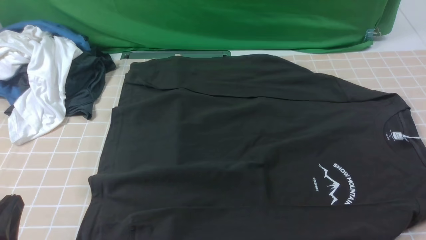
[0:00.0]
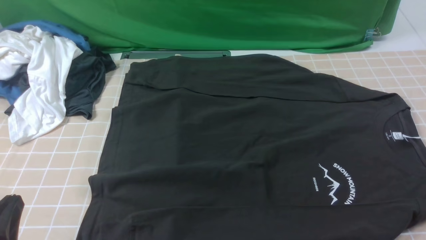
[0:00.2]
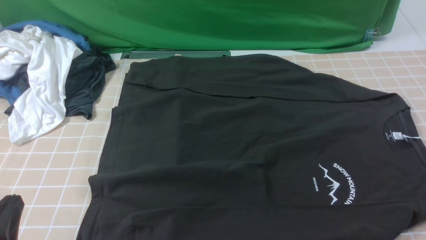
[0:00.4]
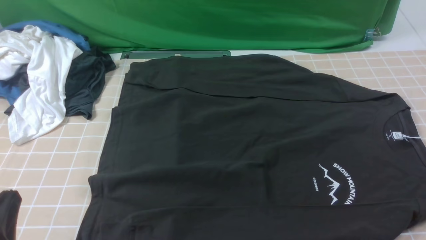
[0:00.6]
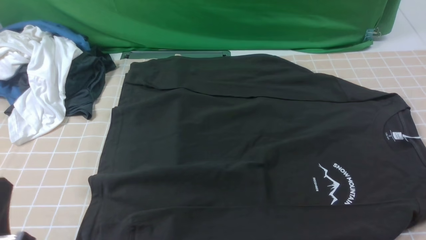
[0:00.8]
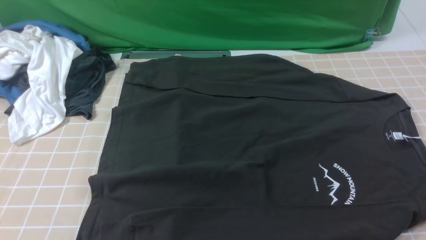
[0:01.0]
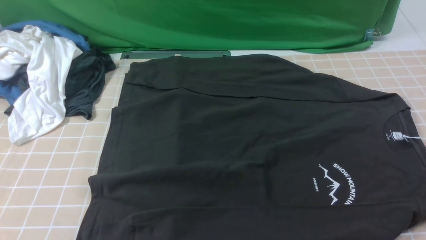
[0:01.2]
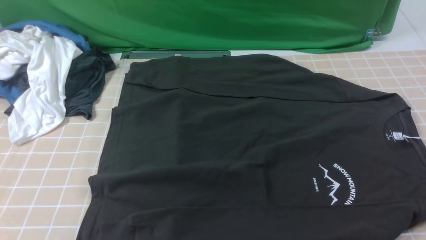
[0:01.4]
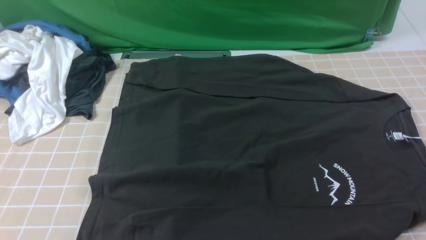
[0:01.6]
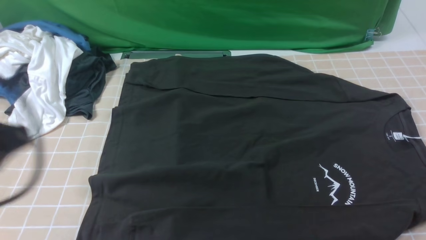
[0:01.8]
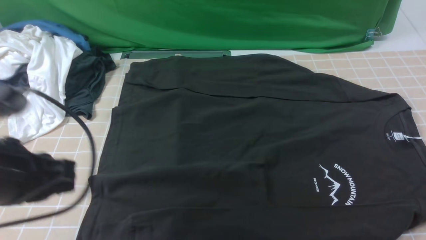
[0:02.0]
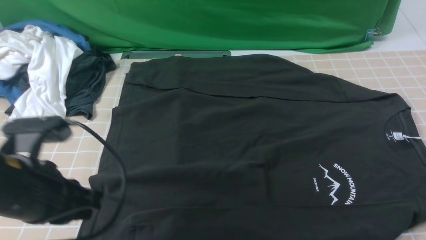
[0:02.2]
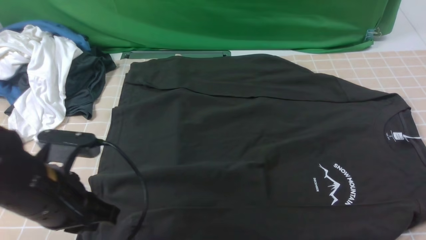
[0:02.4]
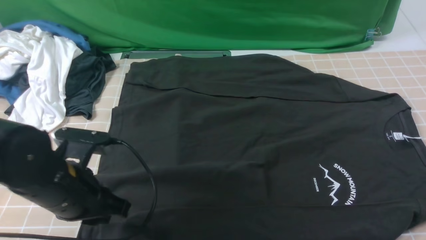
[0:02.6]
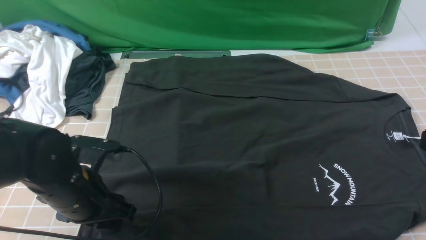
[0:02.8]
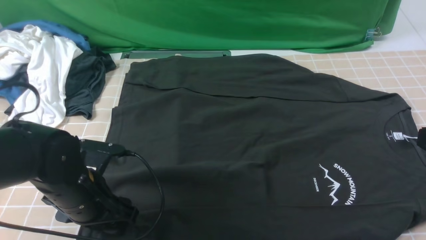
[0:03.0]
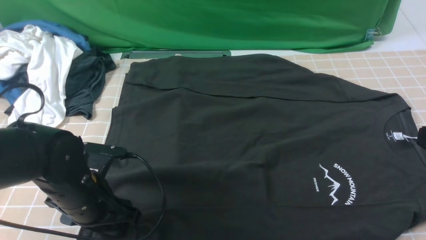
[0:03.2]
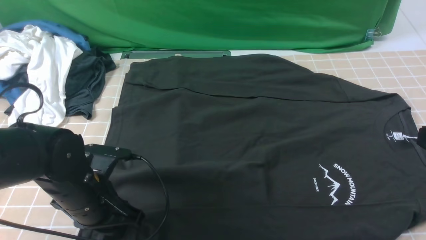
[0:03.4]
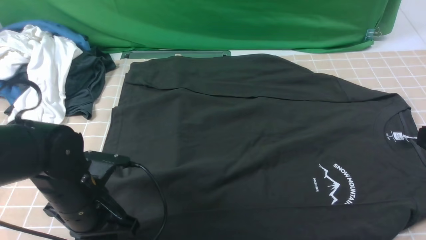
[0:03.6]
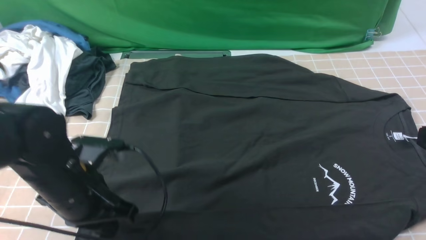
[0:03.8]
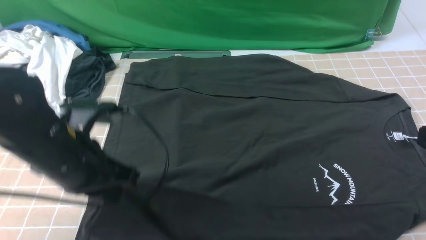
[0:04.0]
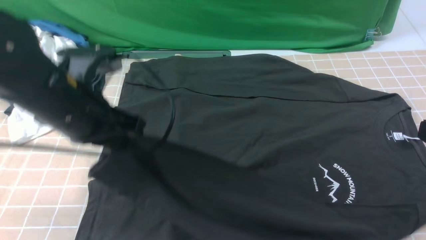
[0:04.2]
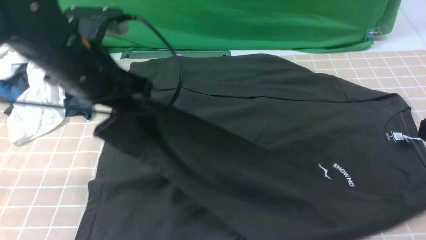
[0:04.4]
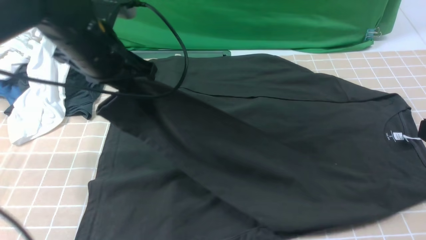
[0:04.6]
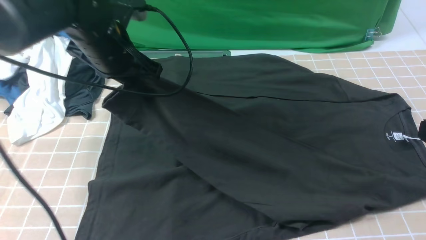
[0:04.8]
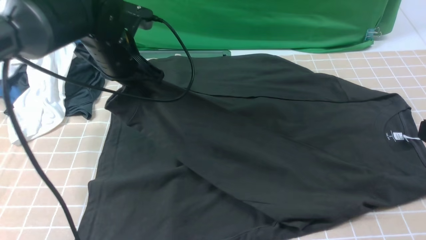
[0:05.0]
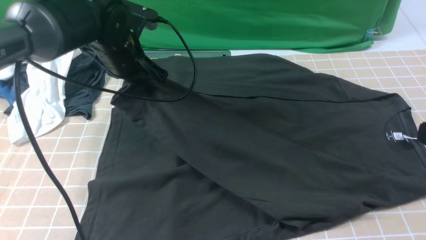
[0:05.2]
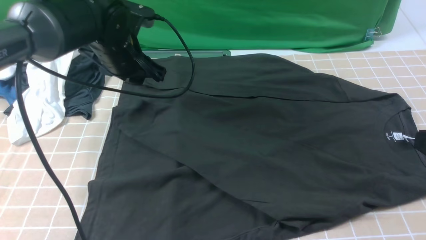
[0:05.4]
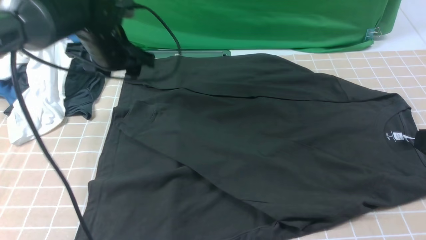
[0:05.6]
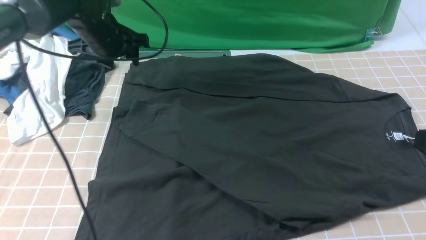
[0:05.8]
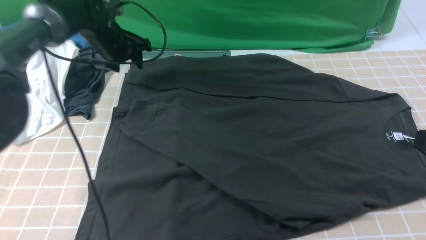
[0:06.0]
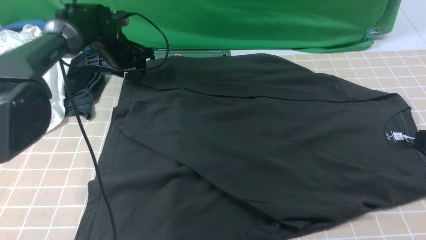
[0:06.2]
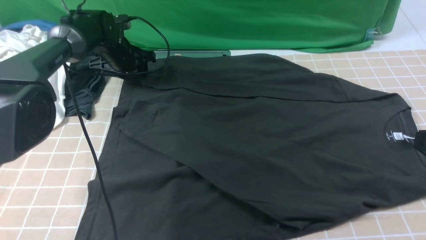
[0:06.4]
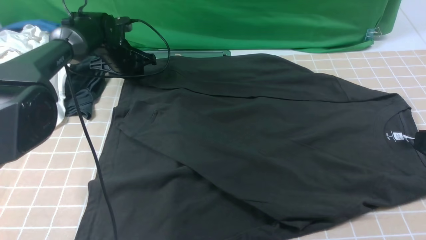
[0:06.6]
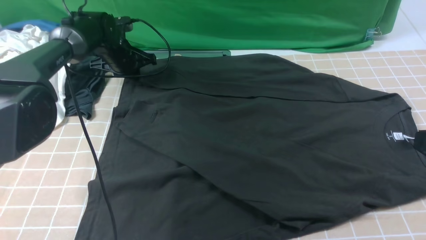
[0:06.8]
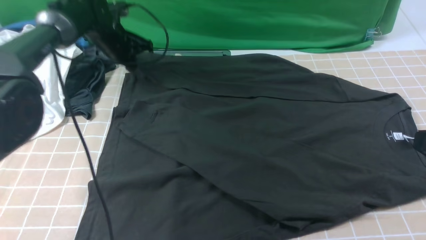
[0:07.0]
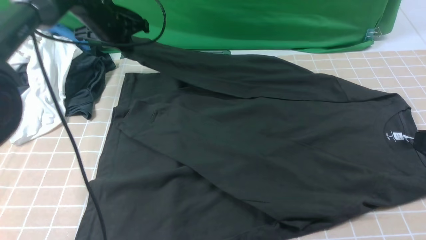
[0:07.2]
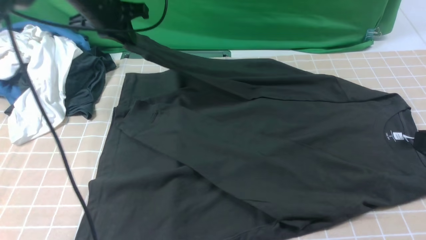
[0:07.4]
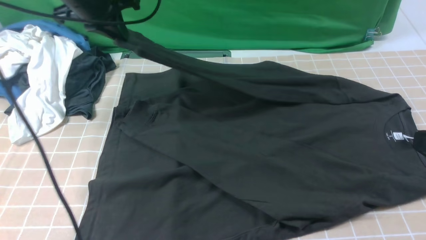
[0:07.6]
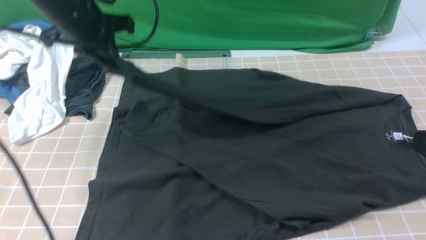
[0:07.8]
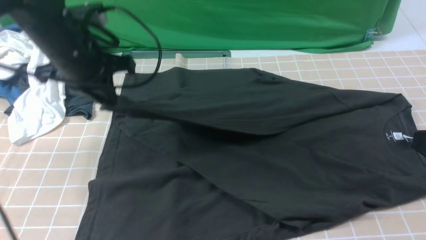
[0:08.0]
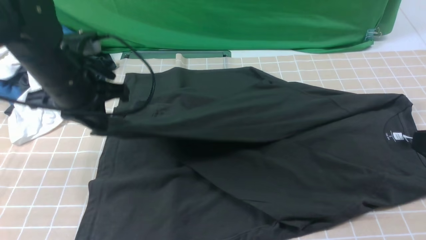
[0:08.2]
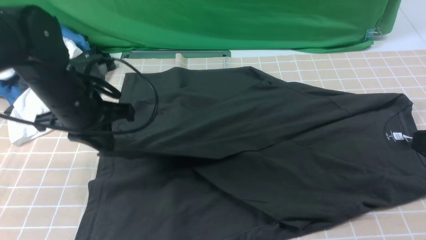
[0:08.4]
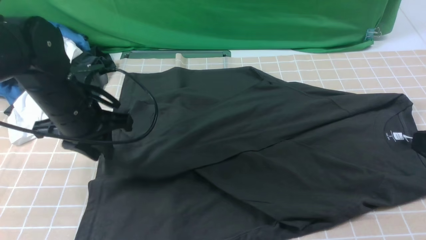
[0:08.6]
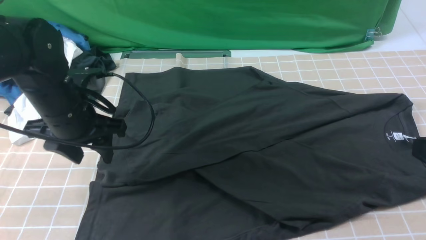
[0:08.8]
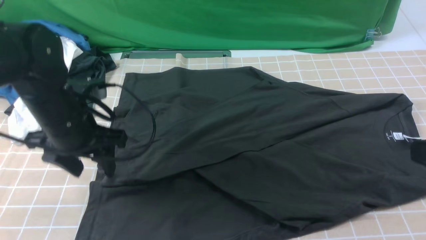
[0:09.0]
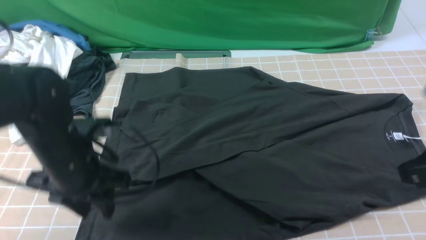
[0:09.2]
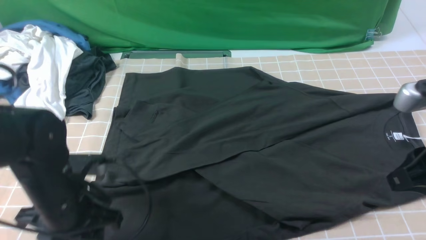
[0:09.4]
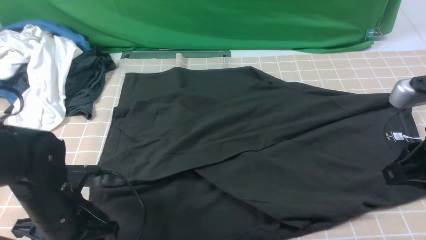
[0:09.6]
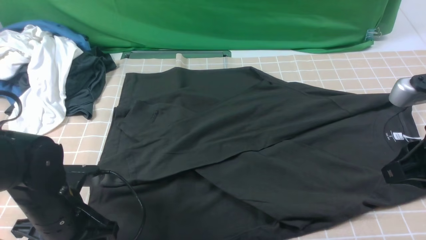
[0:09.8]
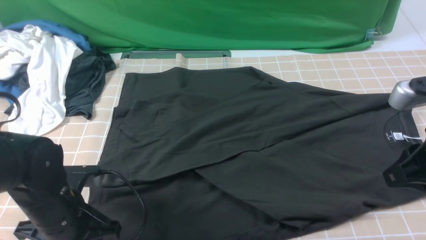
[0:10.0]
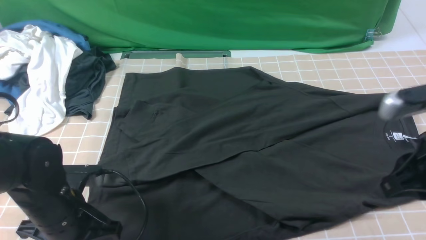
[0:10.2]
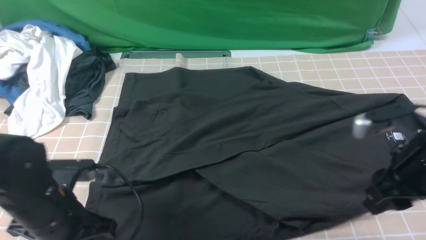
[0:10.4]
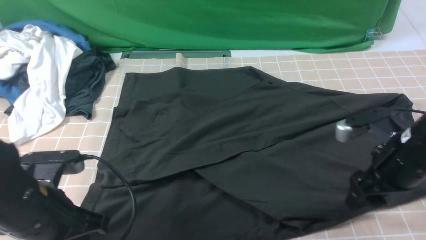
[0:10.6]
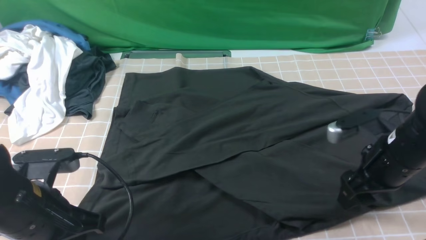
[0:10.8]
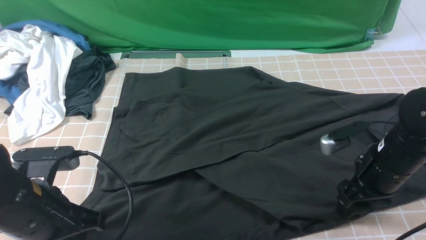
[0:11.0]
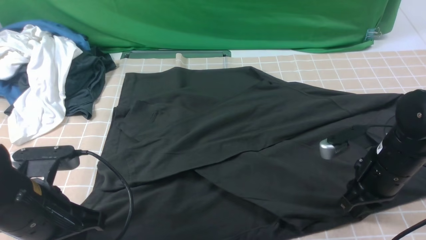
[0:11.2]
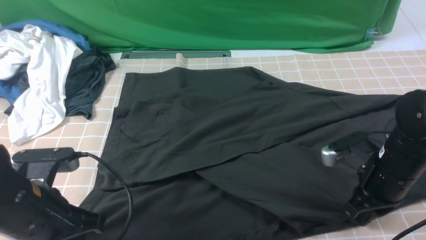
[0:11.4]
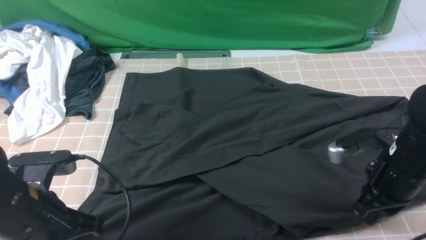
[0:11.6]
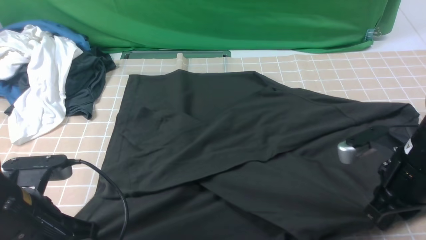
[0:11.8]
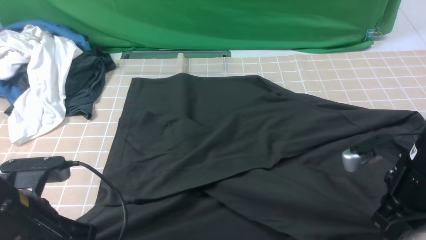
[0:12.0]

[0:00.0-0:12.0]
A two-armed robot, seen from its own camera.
Step, 0:00.0 to 0:03.4: use the left arm to clamp the cuff closest to it.
Step, 0:03.6 to 0:05.4: use the left arm to drag and place the cuff at the centered position on the left edge of the fabric.
Step, 0:05.6 to 0:06.8: use the left arm to clamp the cuff farthest from it.
Step, 0:07.0 to 0:08.6: use the left arm to drag and drop the cuff onto the cuff closest to the left arm.
Step, 0:08.8 to 0:11.2: use both arms simultaneously to clamp the lower edge of the clothing fabric.
0:00.0 to 0:01.6: The left gripper shifts about 15 cm upward.
0:01.6 to 0:03.0: The left gripper is displaced downward and forward by approximately 25 cm, and opens.
0:03.0 to 0:04.4: The left gripper shifts about 15 cm upward and forward, and closes its fingers.
0:04.4 to 0:06.0: The left gripper heads forward and downward, covering some 25 cm, and opens up.
0:06.0 to 0:07.6: The left gripper travels upward and backward by some 15 cm, and closes up.
0:07.6 to 0:09.0: The left gripper moves backward and downward, roughly 20 cm, and opens its fingers.
0:09.0 to 0:10.4: The right gripper is displaced forward and downward by roughly 10 cm, and opens its fingers, while the left gripper goes approximately 10 cm backward, and closes its fingers.
0:10.4 to 0:12.0: The right gripper closes; the left gripper moves about 5 cm.

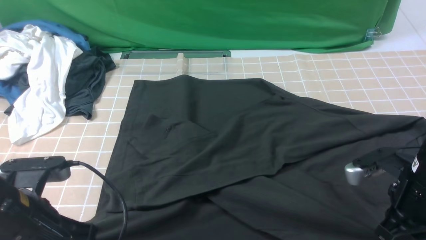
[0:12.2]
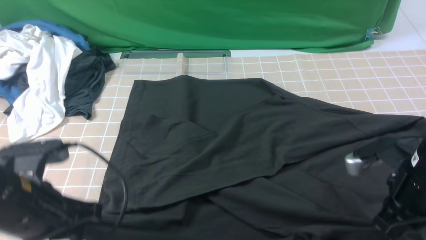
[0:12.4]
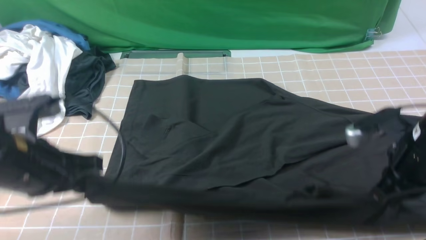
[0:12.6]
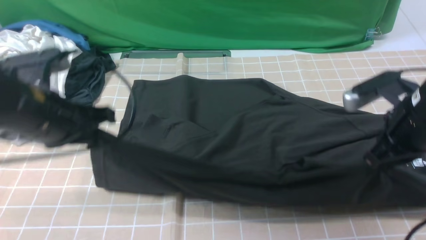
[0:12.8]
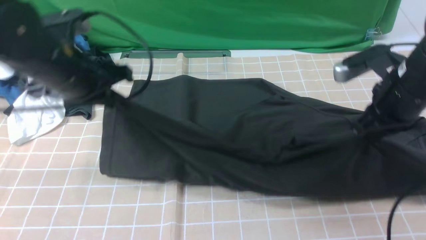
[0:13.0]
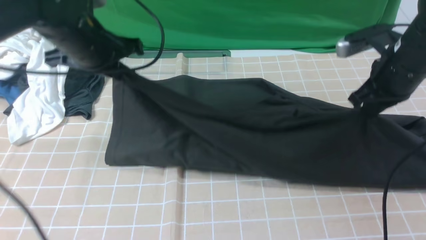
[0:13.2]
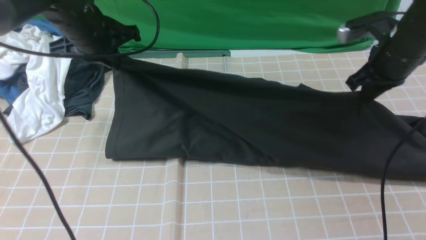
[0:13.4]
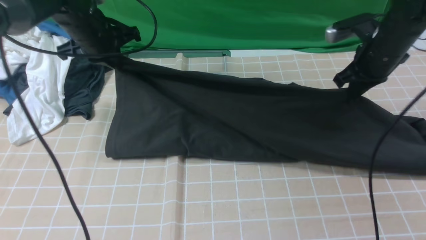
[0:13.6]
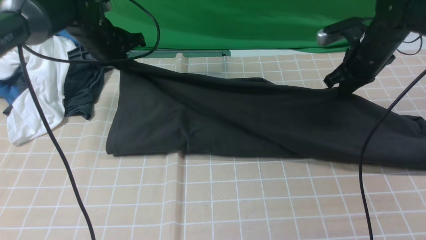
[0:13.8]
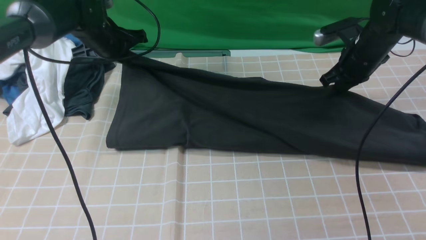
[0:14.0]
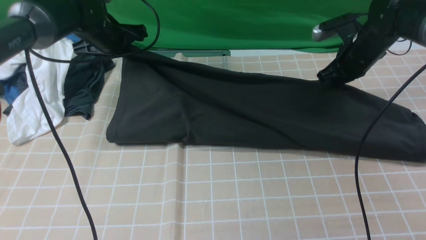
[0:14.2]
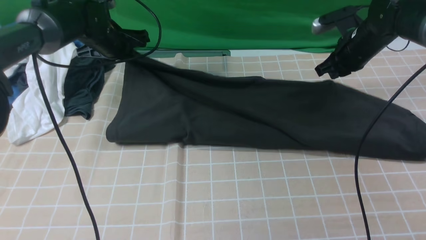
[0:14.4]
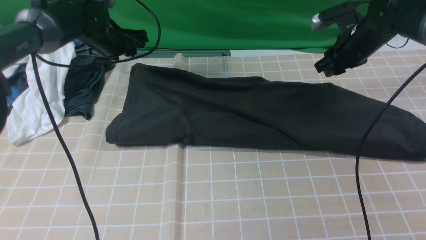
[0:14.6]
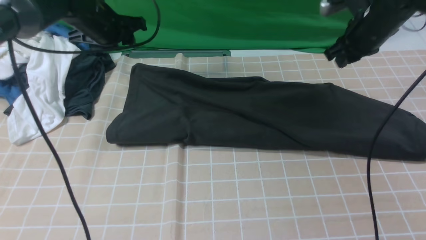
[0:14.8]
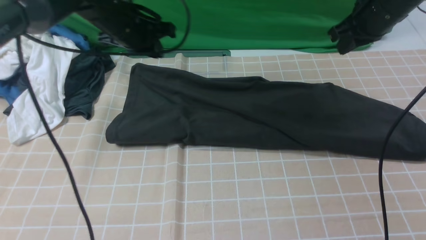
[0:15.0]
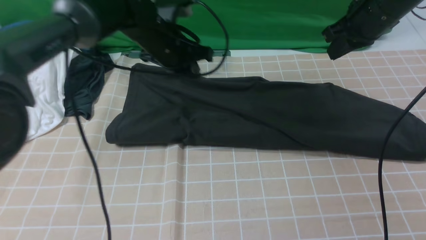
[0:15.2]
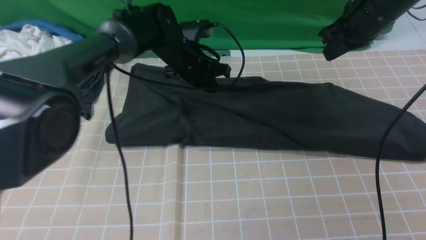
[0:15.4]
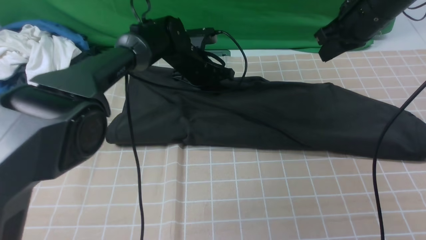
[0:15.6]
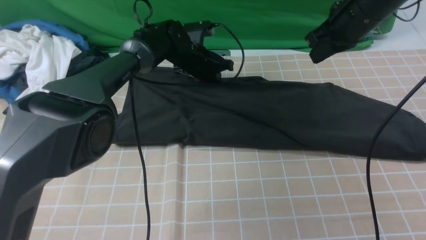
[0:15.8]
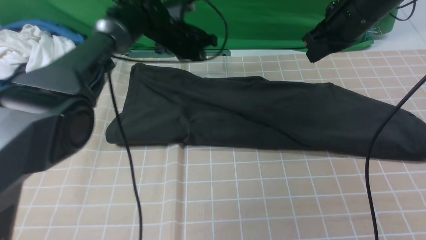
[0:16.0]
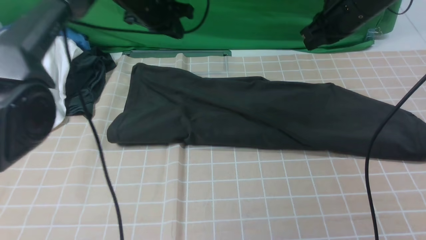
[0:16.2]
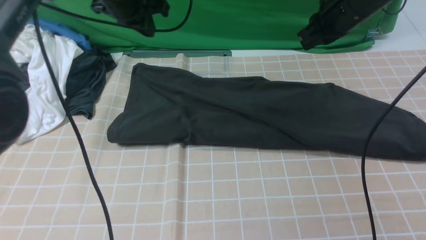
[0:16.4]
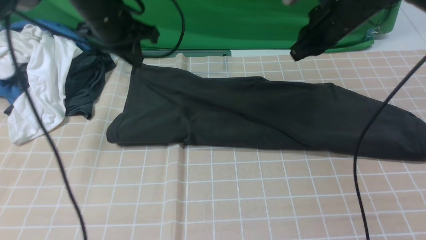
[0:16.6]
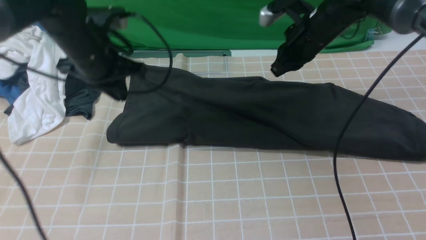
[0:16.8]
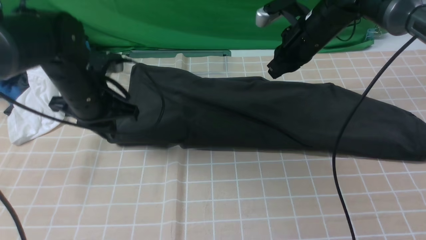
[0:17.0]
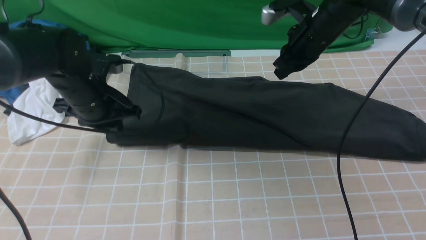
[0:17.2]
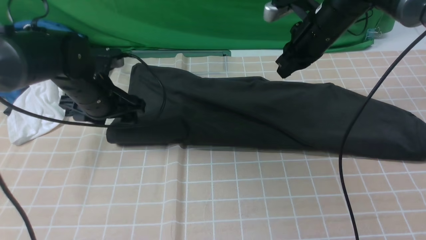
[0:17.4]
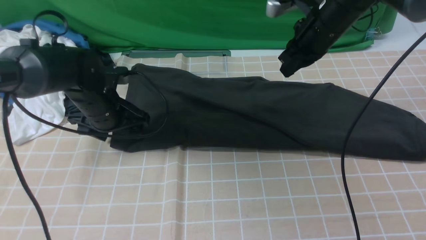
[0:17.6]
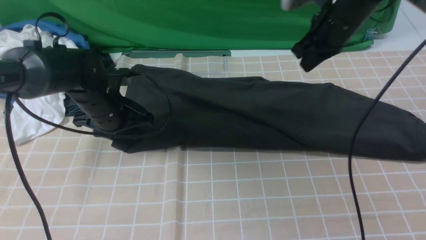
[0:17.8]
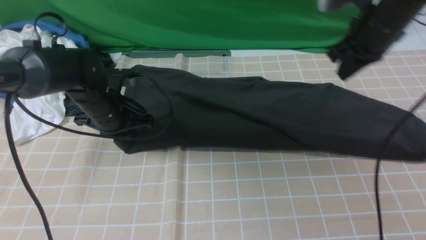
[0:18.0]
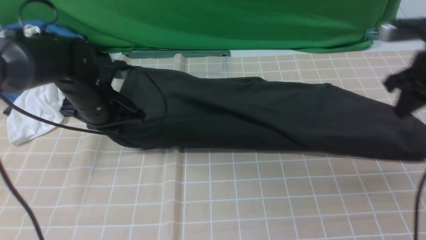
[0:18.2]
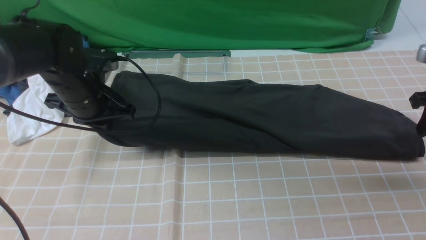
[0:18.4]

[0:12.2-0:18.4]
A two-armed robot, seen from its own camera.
Step, 0:12.2 to 0:14.6: use both arms to drag the lower edge of the fabric forward and fold it over the upper edge.
0:12.2 to 0:13.8: The grippers both shift forward by some 30 cm.
0:13.8 to 0:15.4: The right gripper travels upward by about 10 cm; the left gripper travels to the right by roughly 15 cm, and opens and closes again.
0:15.4 to 0:16.8: The left gripper shifts about 15 cm to the left, backward and upward, while the right gripper is displaced to the left and downward by approximately 10 cm.
0:16.8 to 0:18.4: The right gripper travels to the right and backward by roughly 20 cm, and opens; the left gripper opens, then closes again.
